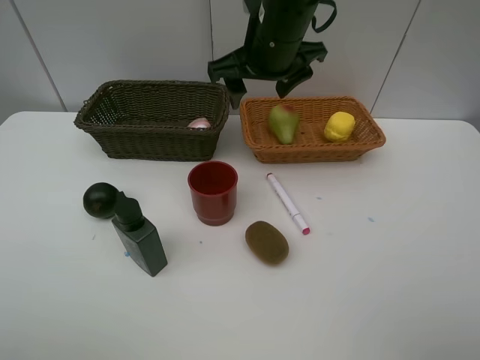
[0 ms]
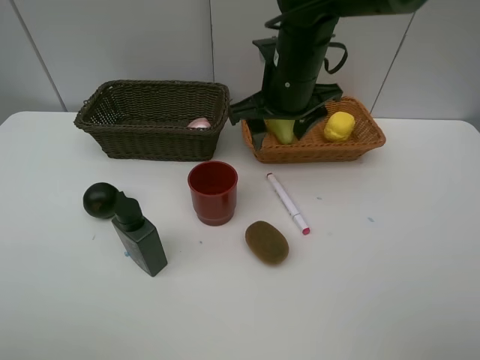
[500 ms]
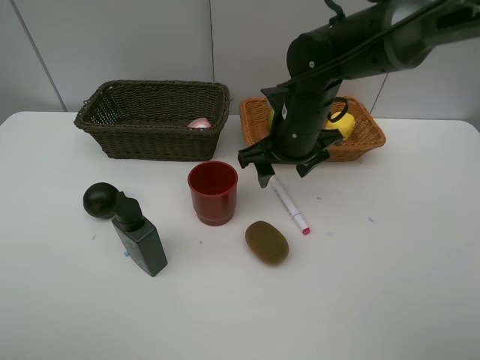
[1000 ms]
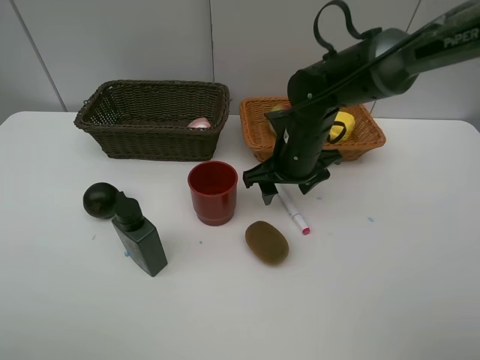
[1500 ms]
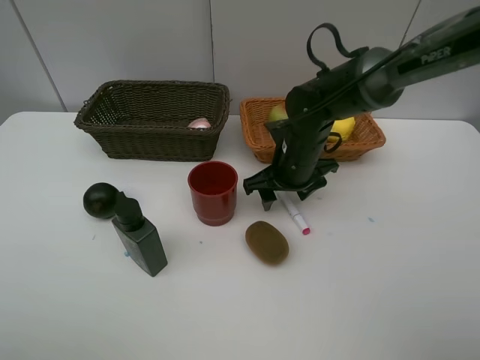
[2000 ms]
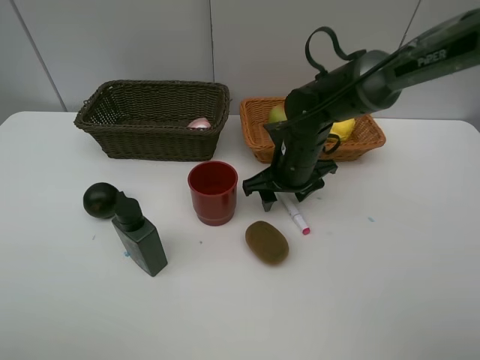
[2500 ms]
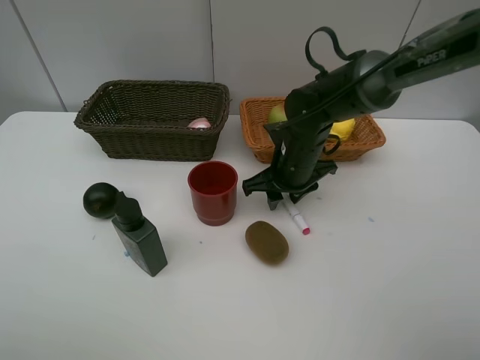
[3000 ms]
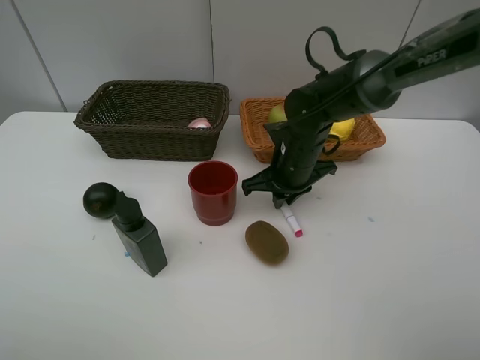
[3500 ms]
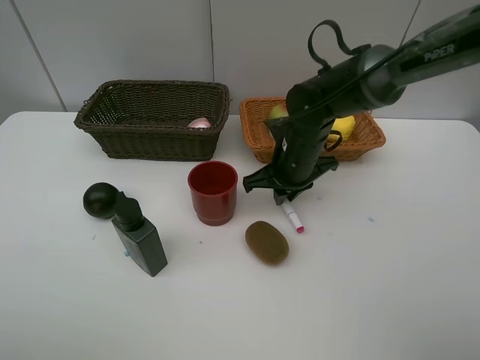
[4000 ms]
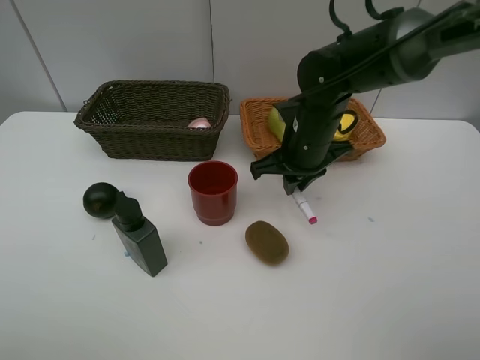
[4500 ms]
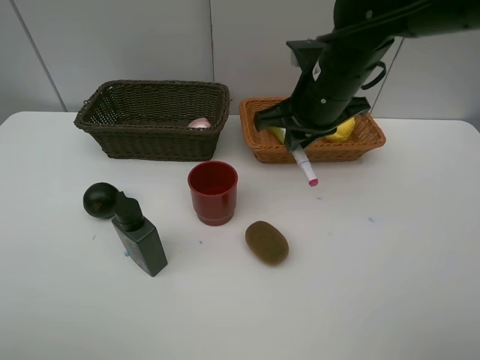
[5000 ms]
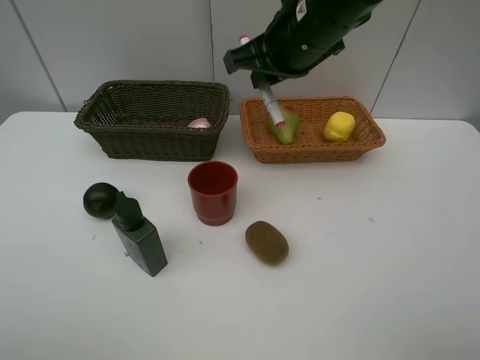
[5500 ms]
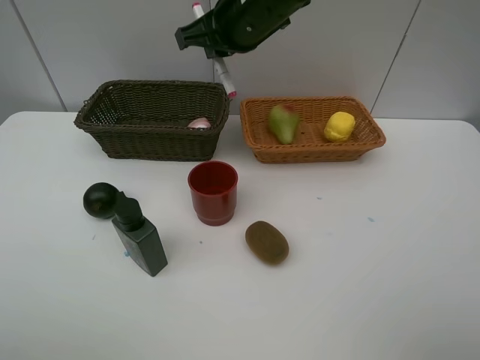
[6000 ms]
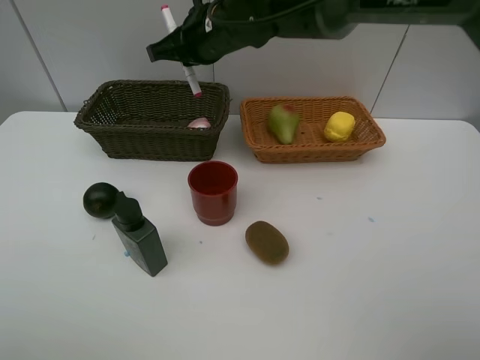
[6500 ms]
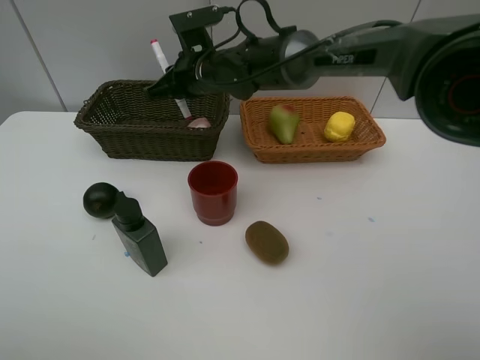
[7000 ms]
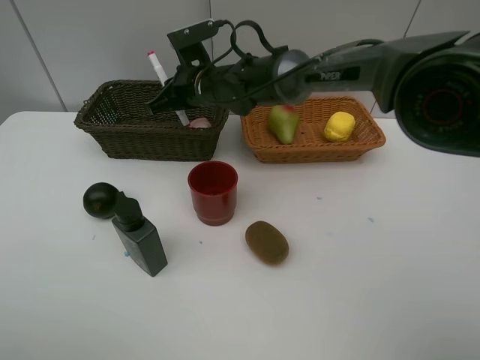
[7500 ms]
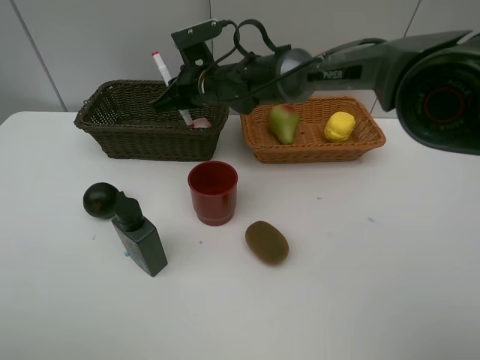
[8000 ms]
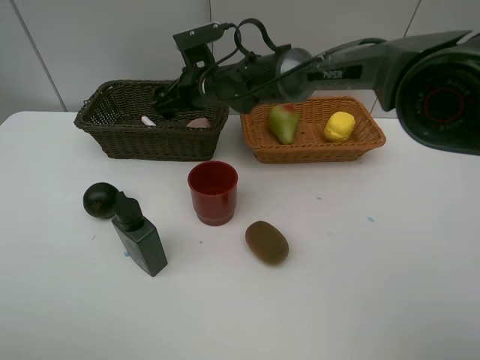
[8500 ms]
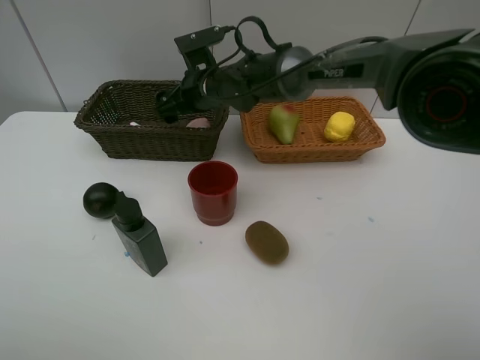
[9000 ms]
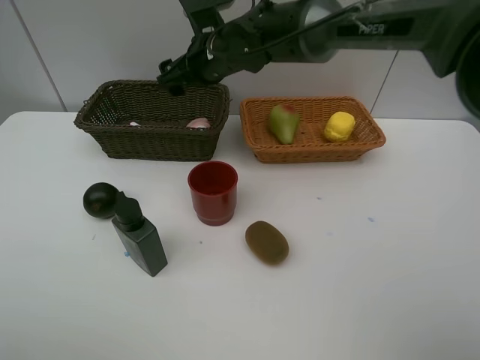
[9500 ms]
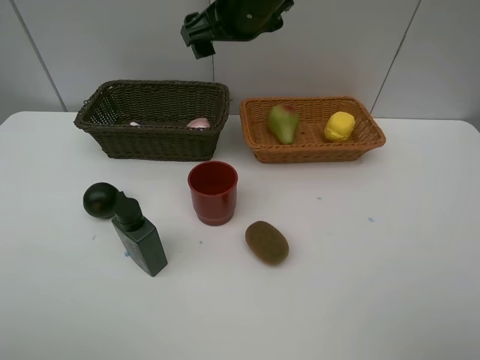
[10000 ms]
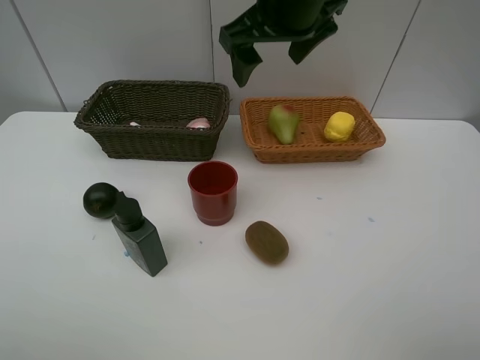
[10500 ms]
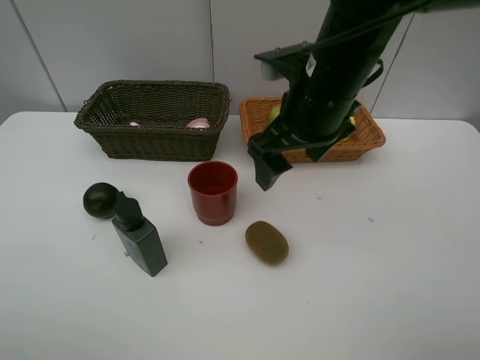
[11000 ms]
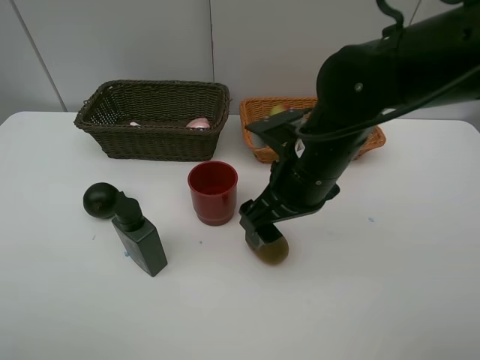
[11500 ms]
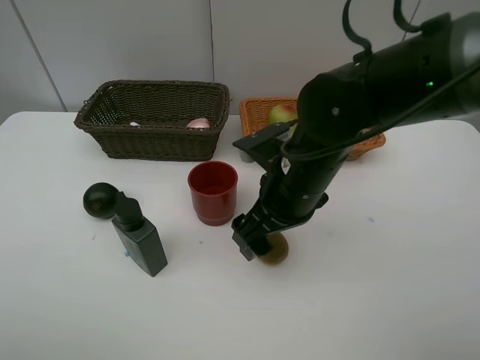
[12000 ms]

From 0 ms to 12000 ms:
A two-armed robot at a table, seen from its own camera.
Task of the whole recording: Place multiple objects separately in different baskets.
Step, from 0 ms to 4000 ms: Pick up the red marker with right gripper.
Step, from 4500 ms to 8500 ms: Place the red marker in the dark basket with right gripper.
From 0 ms to 2000 ms: The right gripper goes some 15 cm downward.
From 2000 ms to 4000 ms: The right gripper closes up.
From 4000 ms to 6000 ms: The right gripper travels upward and to the left by some 20 cm.
From 6000 ms to 8000 ms: The right gripper moves downward, to the left and forward, approximately 15 cm.
From 8000 ms to 10000 ms: The right gripper shifts roughly 15 cm upward and to the right, and opens up.
From 10000 ms to 12000 ms: The right gripper is displaced backward and downward by approximately 20 cm.

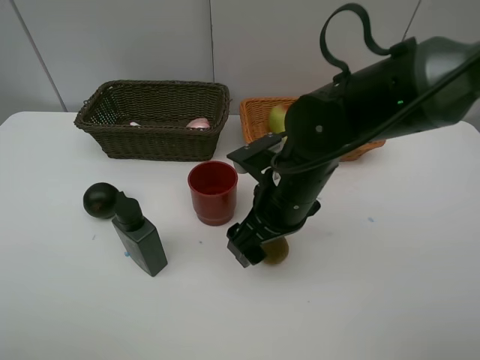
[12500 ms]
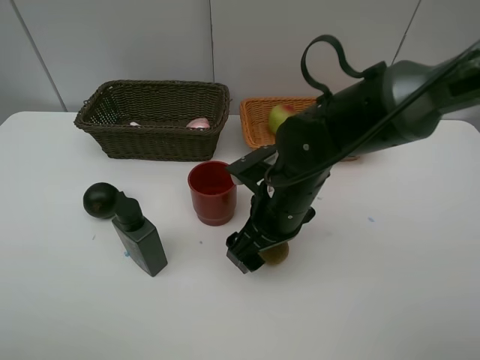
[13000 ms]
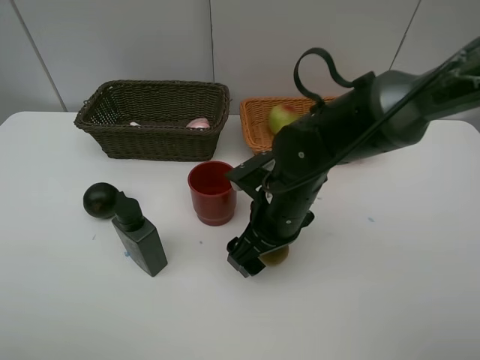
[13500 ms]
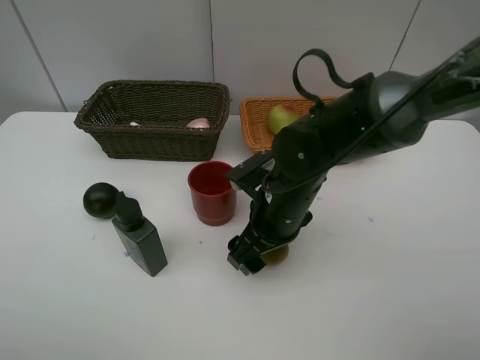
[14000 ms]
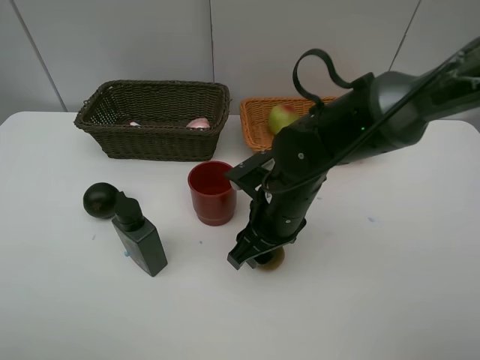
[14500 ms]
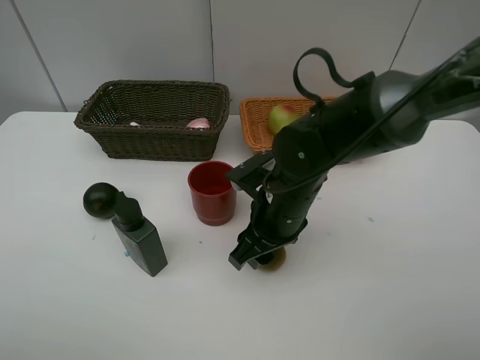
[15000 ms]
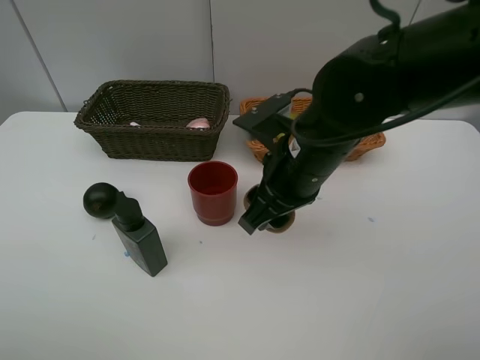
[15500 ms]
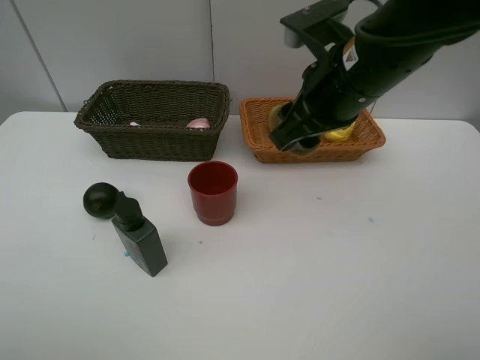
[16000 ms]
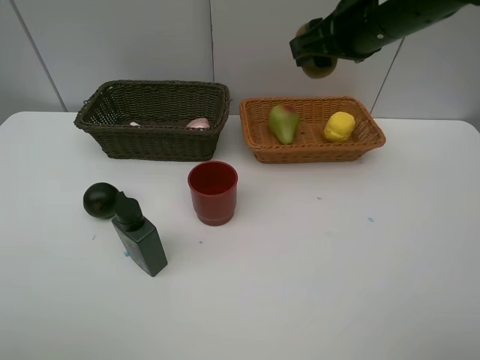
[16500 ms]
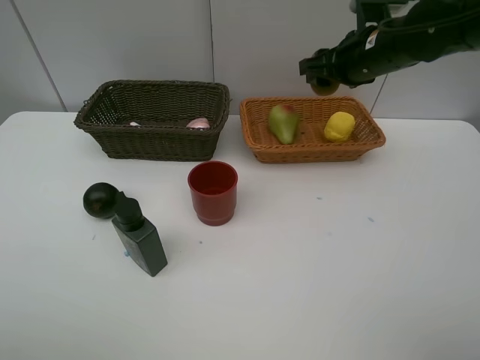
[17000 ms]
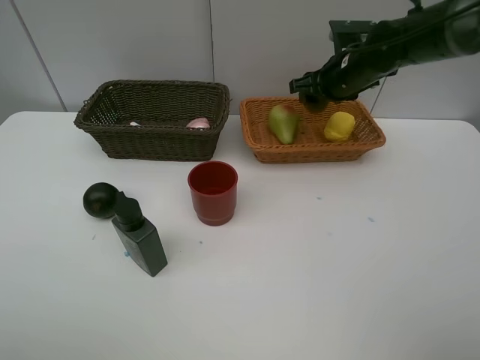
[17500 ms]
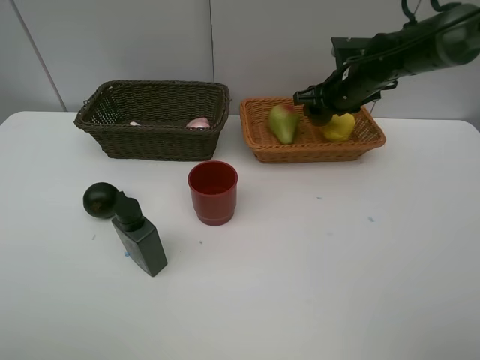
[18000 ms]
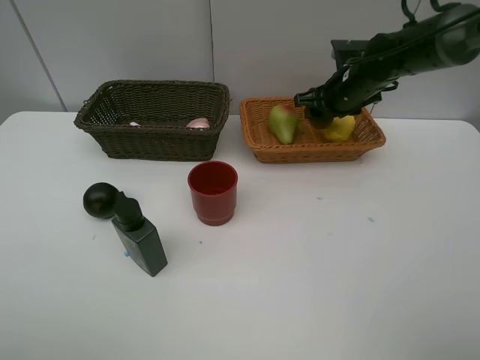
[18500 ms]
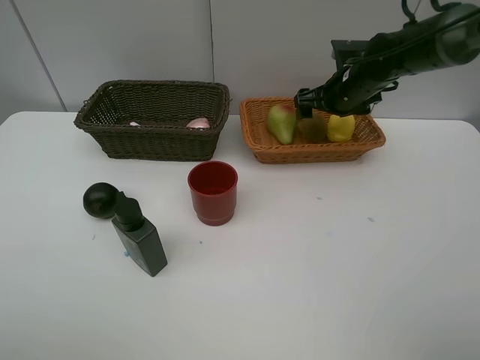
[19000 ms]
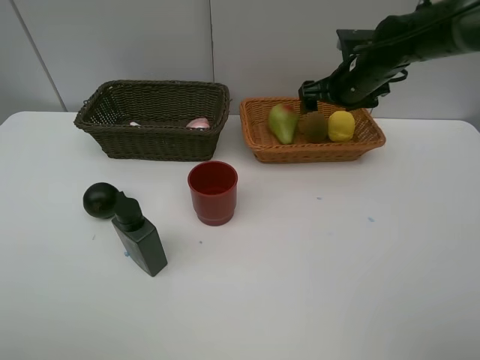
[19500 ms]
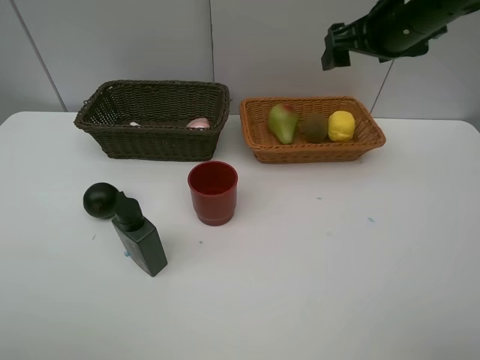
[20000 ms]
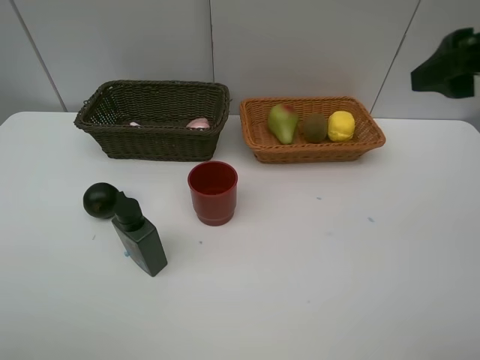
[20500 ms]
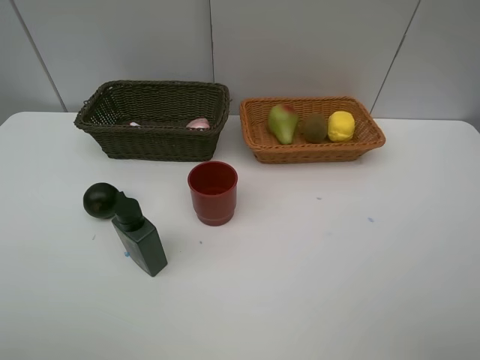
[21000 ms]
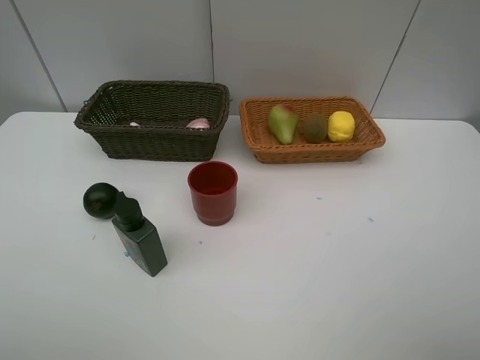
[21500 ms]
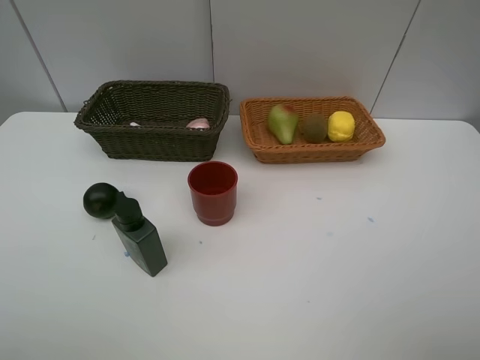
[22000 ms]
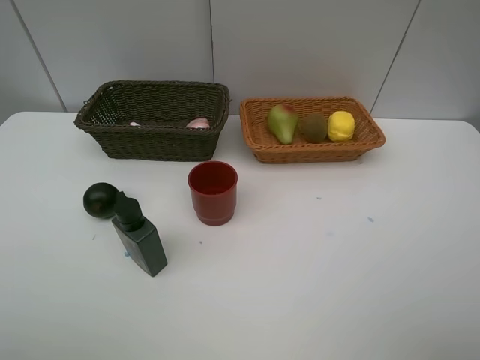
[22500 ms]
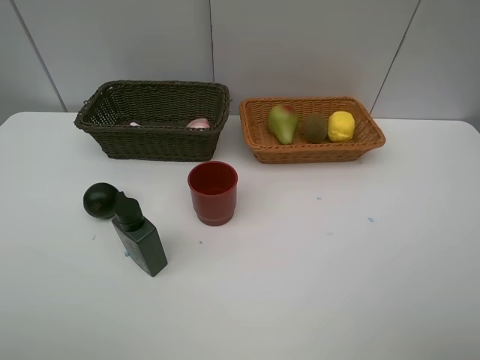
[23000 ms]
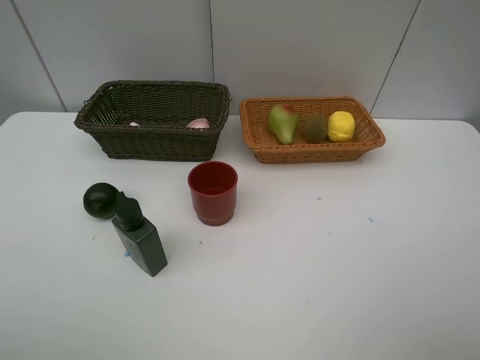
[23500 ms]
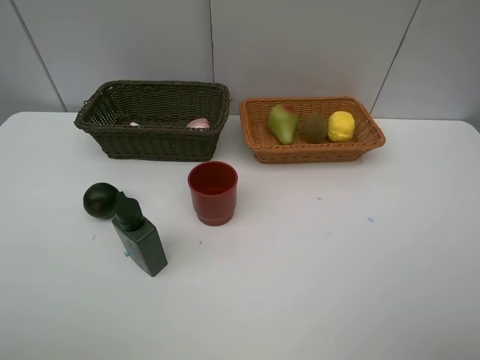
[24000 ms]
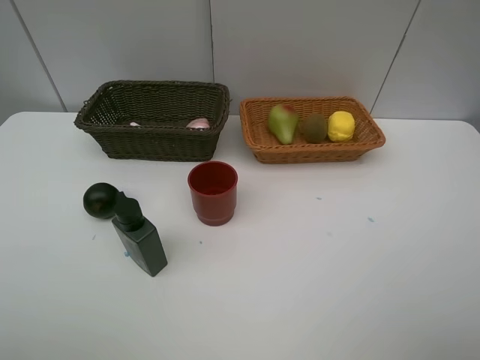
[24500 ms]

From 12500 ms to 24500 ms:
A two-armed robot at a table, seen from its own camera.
Task of the whole recording: Place multiple objects separately in different baskets.
Step, from 12500 ms to 15000 ms: Pick up kiwi with right gripper.
Step, from 15500 ms to 19500 ms: Place the kiwi in the light basket with right gripper.
From 12500 ms to 14500 ms: The right gripper closes.
From 14500 ms to 16500 ms: The right gripper moves upward, to the right and forward, about 25 cm.
From 16500 ms to 18500 ms: The right gripper is displaced downward and forward by approximately 20 cm.
From 18500 ms to 20500 ms: The right gripper travels backward and upward by some 30 cm, and opens.
From 20500 ms to 22500 ms: The right gripper travels backward by approximately 20 cm.

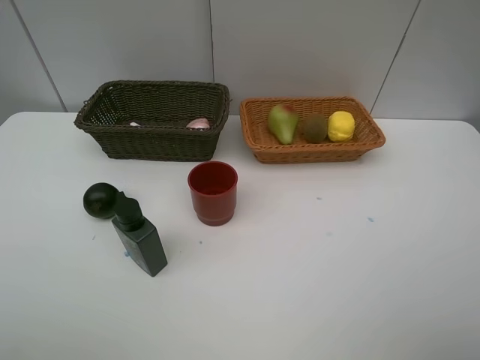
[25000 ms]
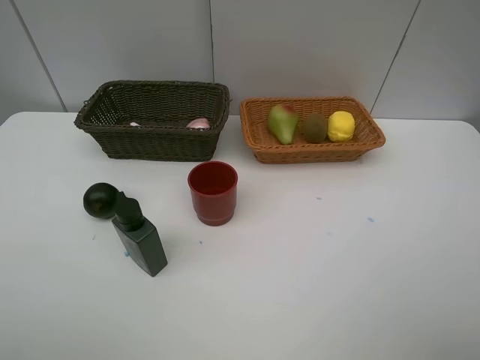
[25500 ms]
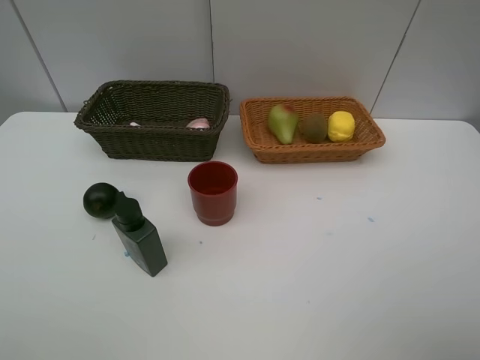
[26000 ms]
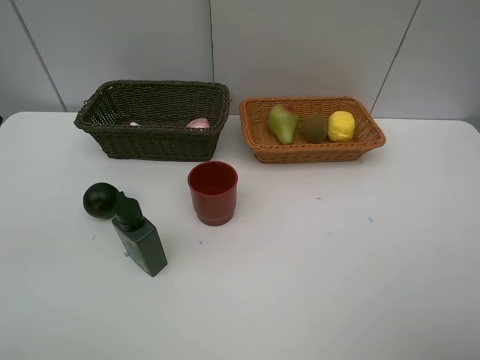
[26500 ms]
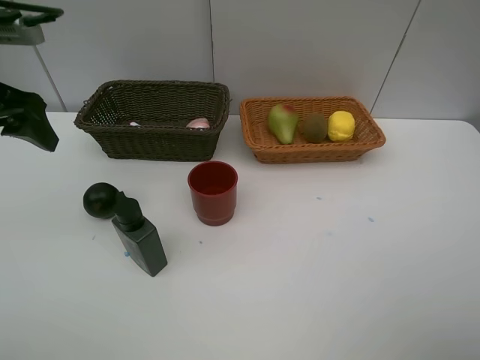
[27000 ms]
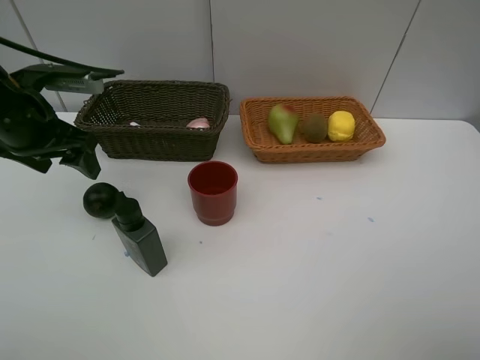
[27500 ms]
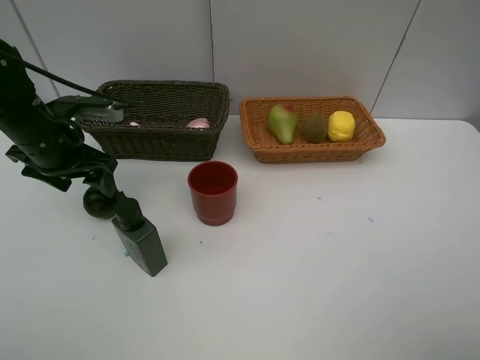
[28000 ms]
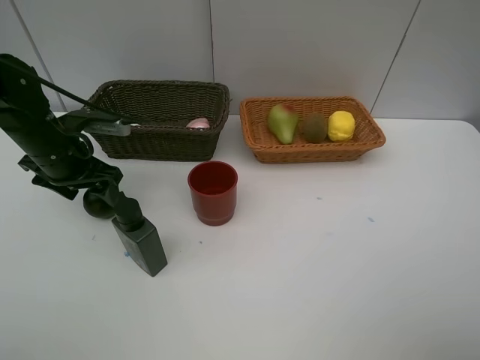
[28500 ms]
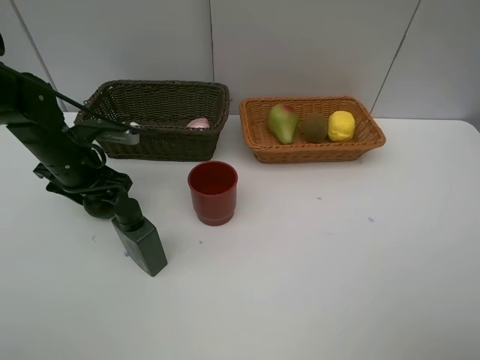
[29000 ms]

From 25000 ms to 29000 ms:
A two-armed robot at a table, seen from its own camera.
Task of the whole recording: Place multiple objects separately in different baskets.
From 25000 ms to 27000 ms: The left gripper moves forward, approximately 25 cm.
From 27000 ms to 29000 ms: The left gripper is displaced downward by some 15 cm.
